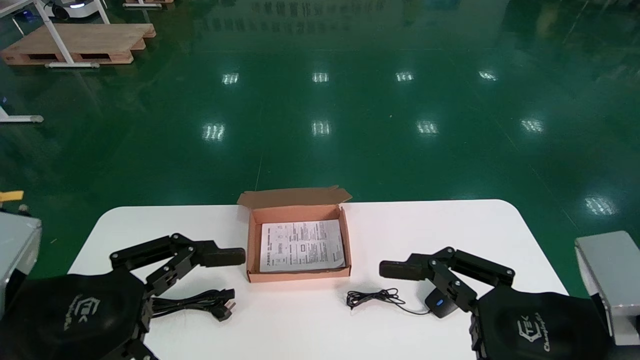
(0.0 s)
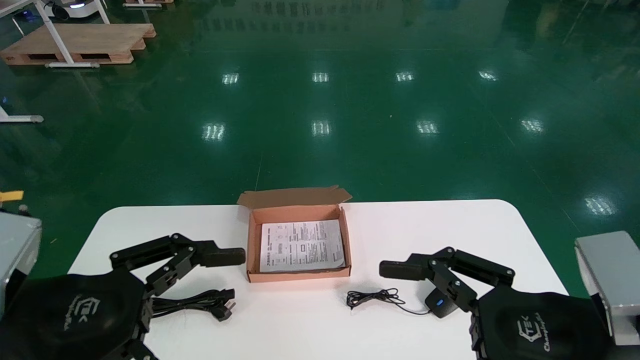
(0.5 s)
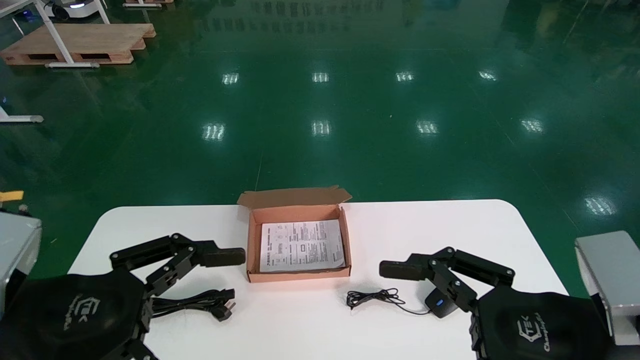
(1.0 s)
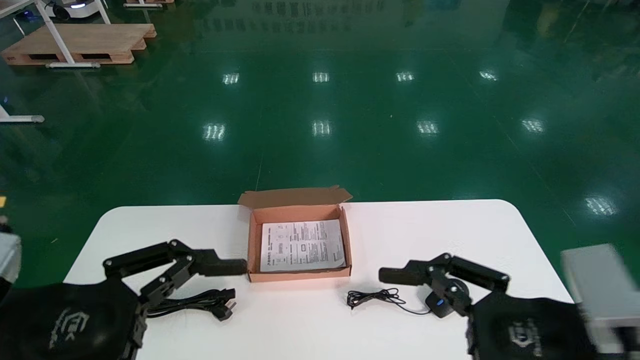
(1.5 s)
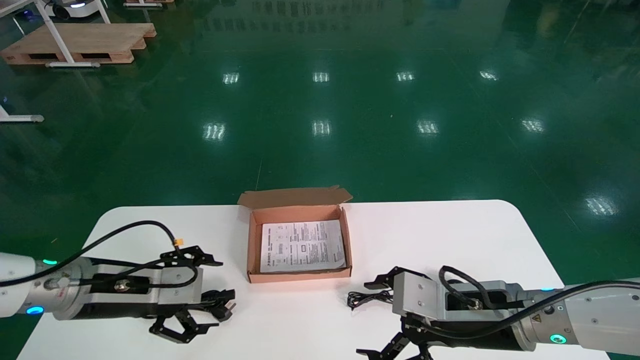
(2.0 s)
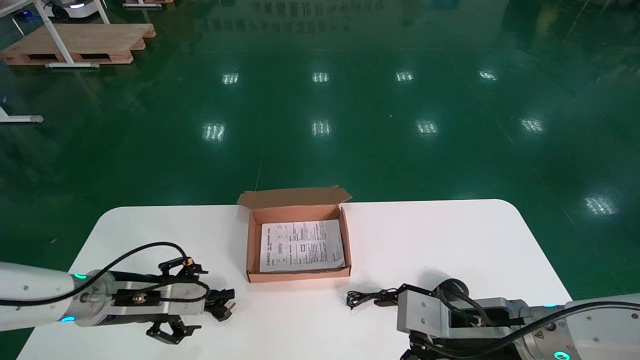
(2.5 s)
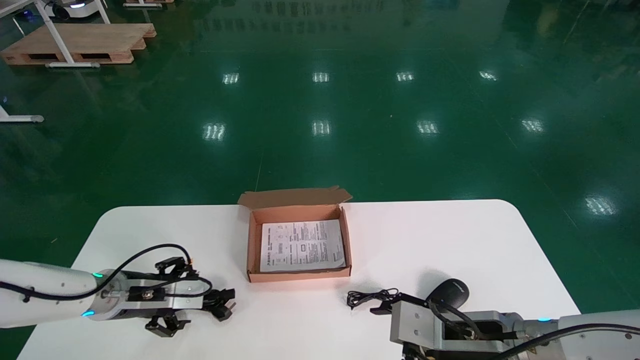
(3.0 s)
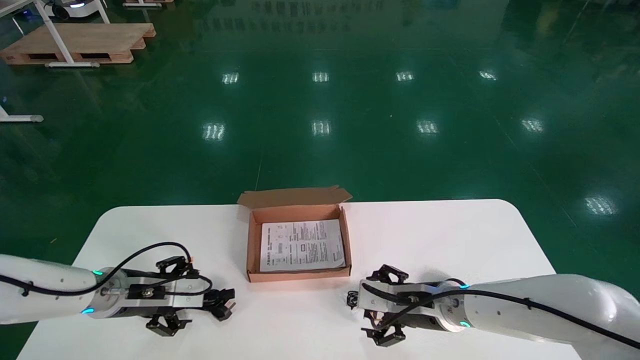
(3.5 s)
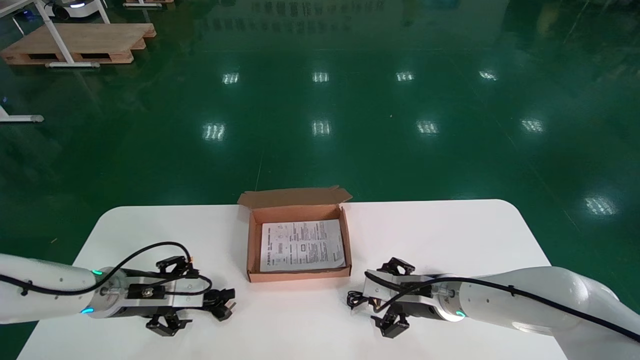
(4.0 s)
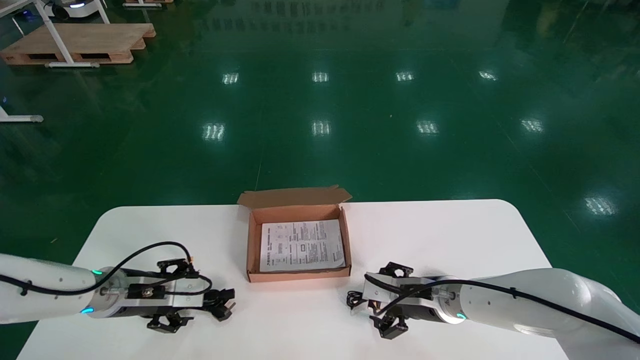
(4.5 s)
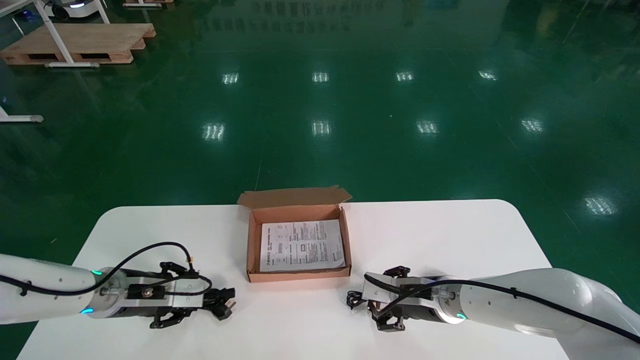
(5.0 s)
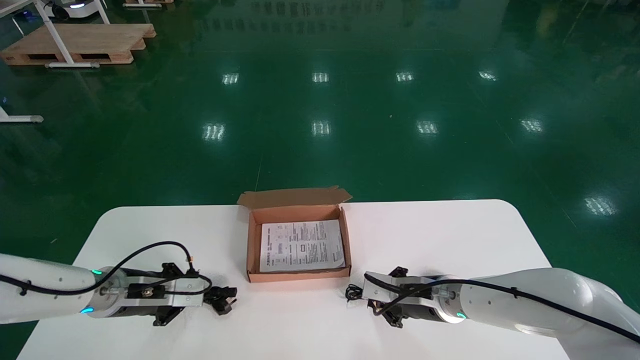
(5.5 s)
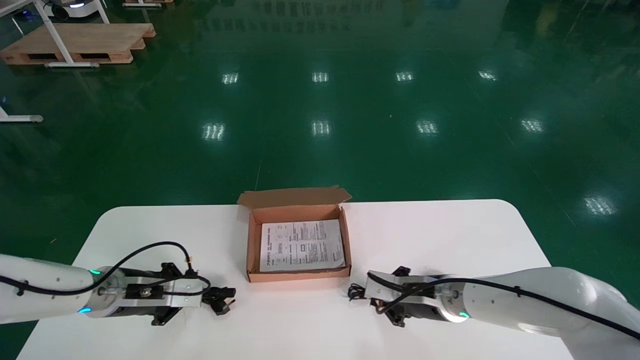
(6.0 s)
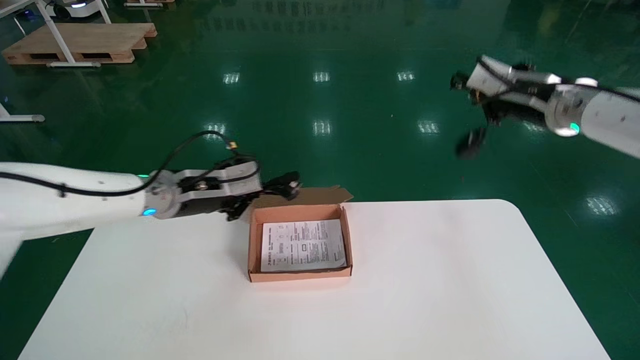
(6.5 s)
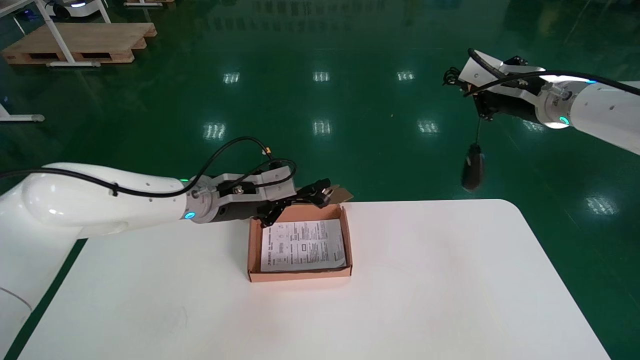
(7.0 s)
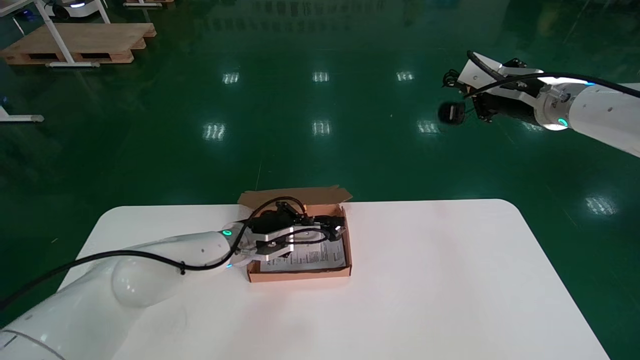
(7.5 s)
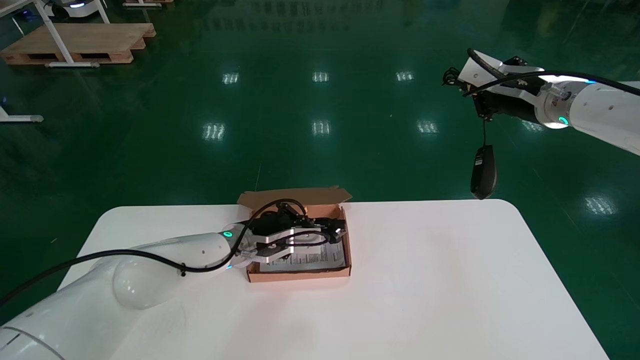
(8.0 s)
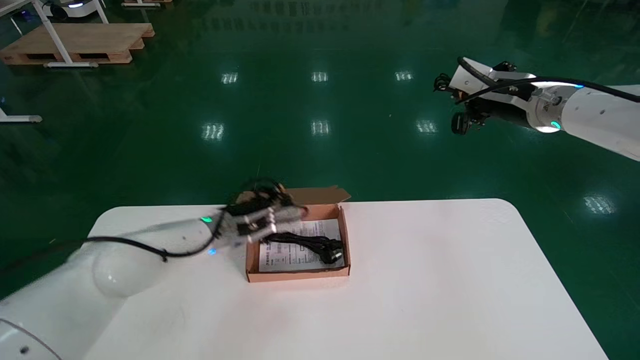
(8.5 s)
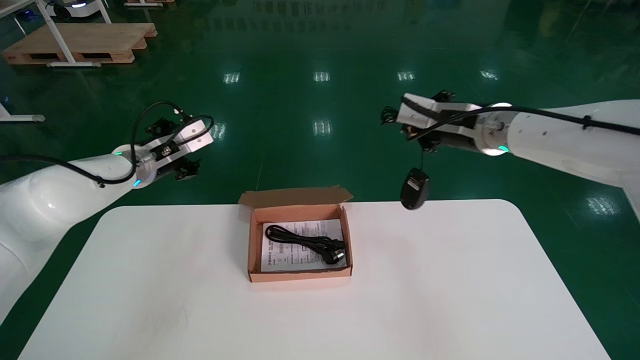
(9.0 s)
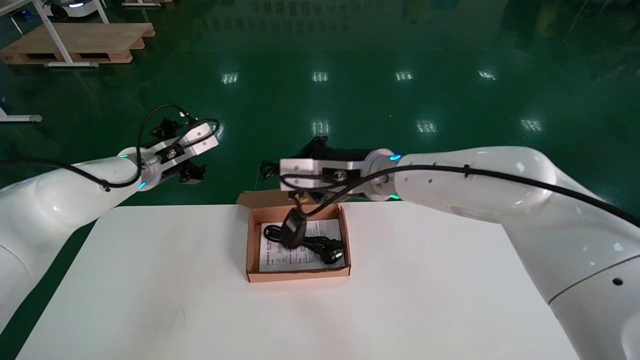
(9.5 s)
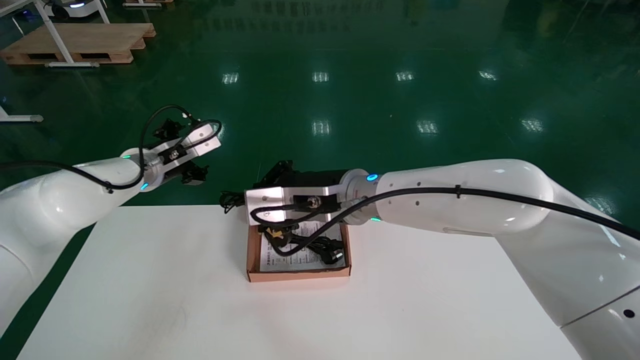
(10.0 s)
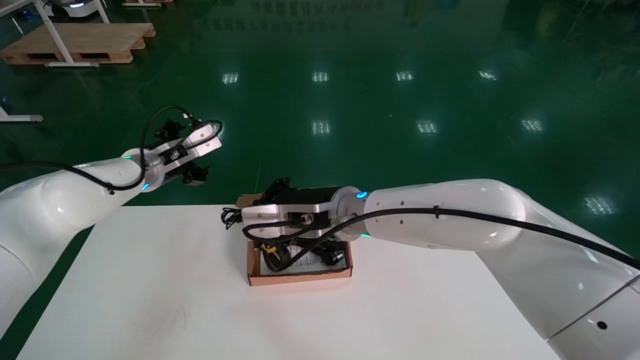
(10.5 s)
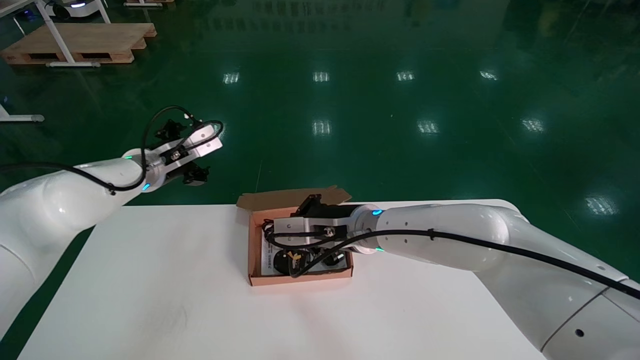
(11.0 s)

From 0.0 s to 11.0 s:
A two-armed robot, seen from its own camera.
Step, from 2.0 s to 5.5 s: Simultaneously pick up the mouse and power cord from the accessory packaging area.
From 0.0 s to 2.0 s: The left gripper heads forward, covering about 15 cm, while the right gripper heads forward and downward, covering roughly 15 cm.
From 2.0 s to 3.5 s: Both grippers travel together forward and downward, about 10 cm.
From 3.5 s to 5.5 s: The left gripper closes its fingers, while the right gripper closes.
From 5.5 s to 7.5 s: The right gripper is displaced upward by roughly 30 cm, while the left gripper is displaced to the right by some 20 cm.
From 7.5 s to 9.0 s: The right gripper goes roughly 10 cm to the left; the left gripper shifts about 20 cm to the left and upward, and opens.
From 9.0 s to 11.0 s: The right gripper moves to the left and downward, roughly 20 cm.

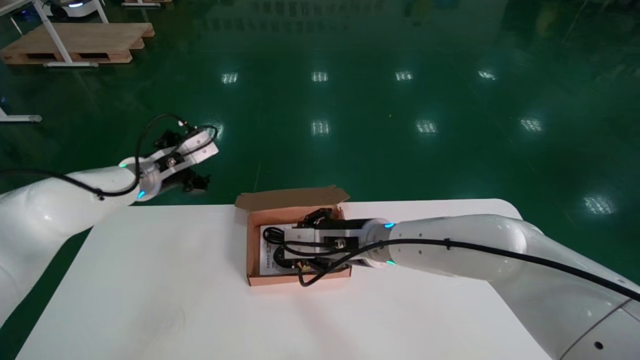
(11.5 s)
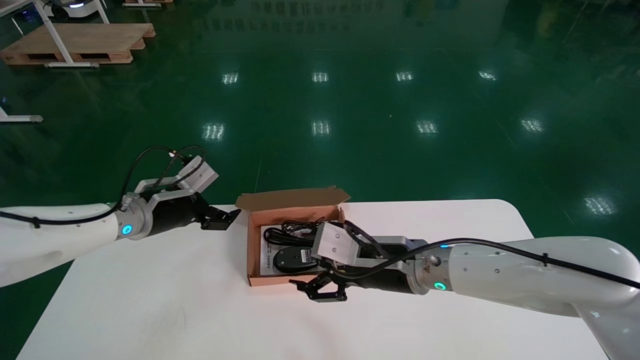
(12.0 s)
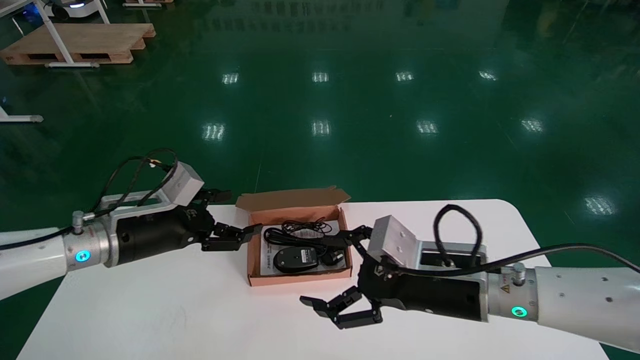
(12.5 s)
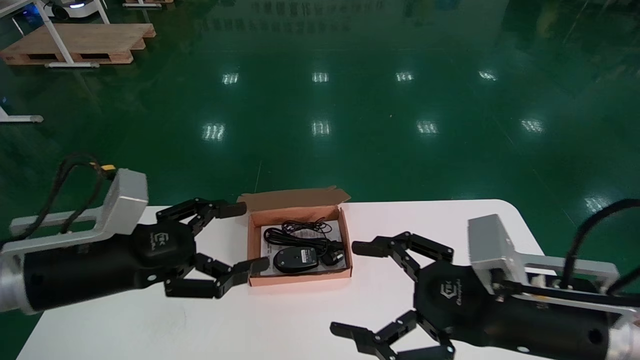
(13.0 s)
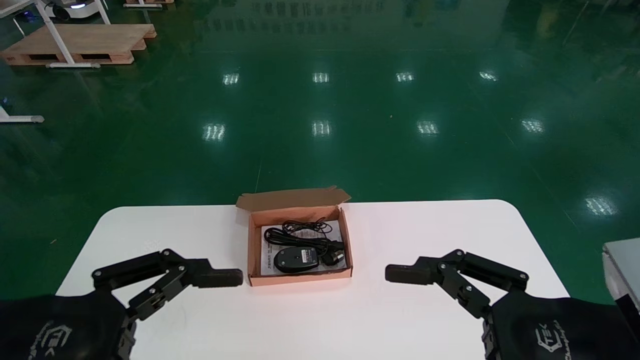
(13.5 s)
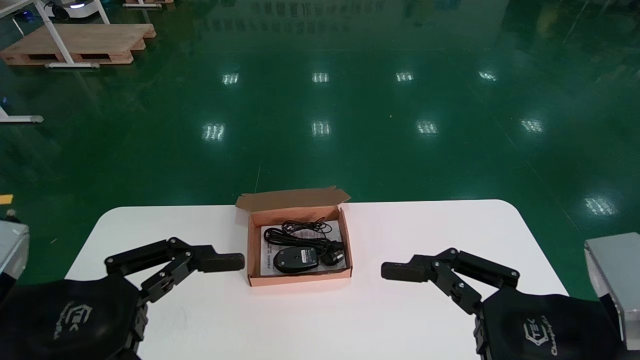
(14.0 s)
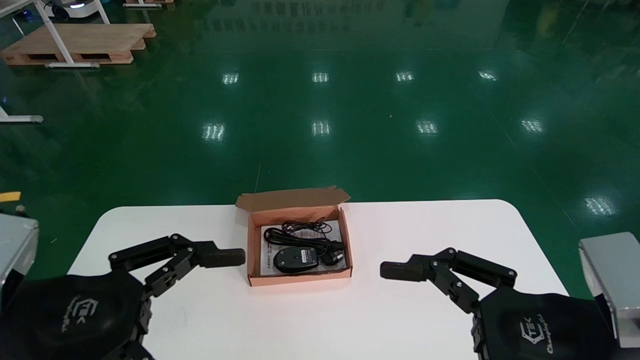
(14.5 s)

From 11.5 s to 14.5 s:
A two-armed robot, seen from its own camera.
From 11.5 s to 13.0 s: The left gripper moves backward, some 20 cm. Meanwhile the right gripper travels backward and to the right by approximately 25 cm, and opens up.
From 13.0 s to 14.5 s: The left gripper goes about 10 cm backward, while the right gripper is displaced backward by some 5 cm.
